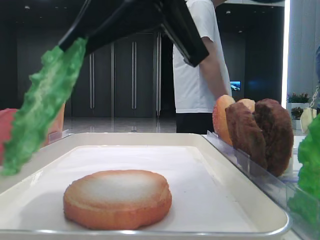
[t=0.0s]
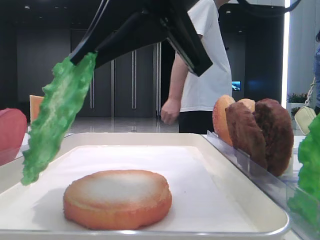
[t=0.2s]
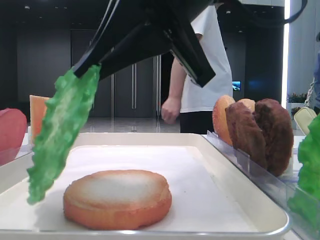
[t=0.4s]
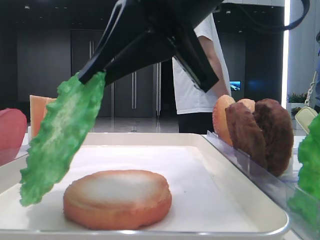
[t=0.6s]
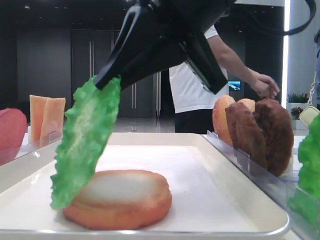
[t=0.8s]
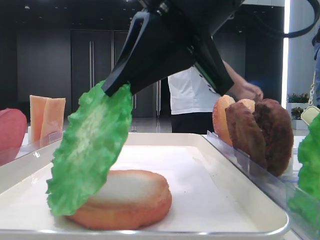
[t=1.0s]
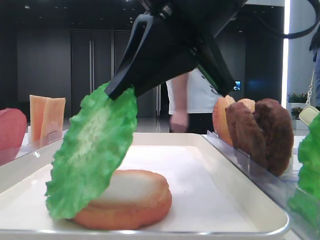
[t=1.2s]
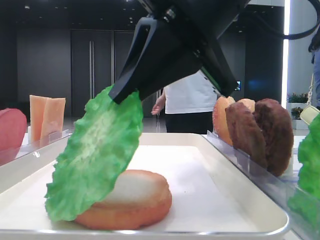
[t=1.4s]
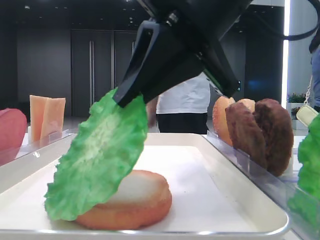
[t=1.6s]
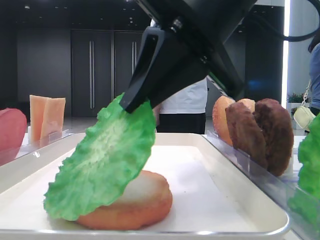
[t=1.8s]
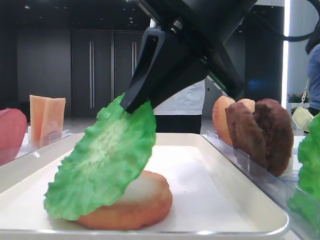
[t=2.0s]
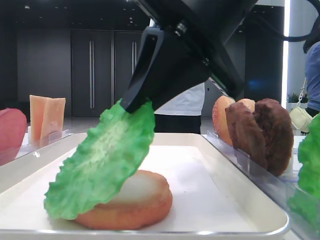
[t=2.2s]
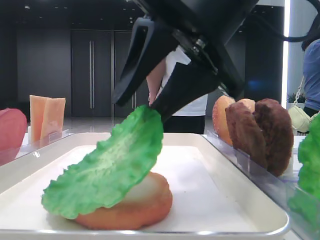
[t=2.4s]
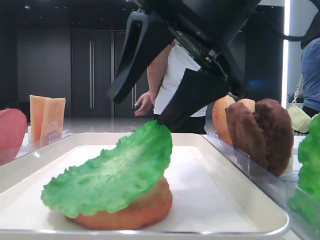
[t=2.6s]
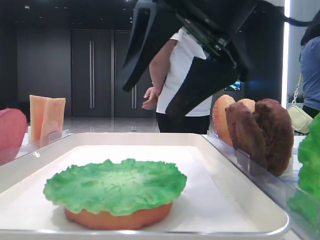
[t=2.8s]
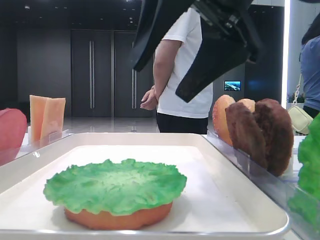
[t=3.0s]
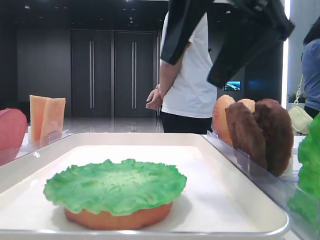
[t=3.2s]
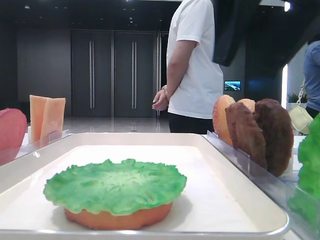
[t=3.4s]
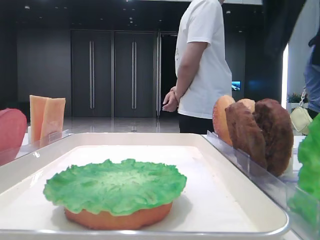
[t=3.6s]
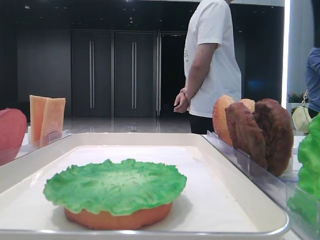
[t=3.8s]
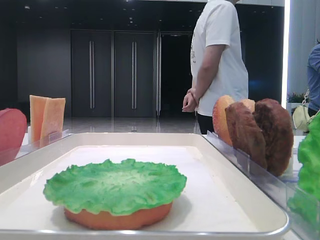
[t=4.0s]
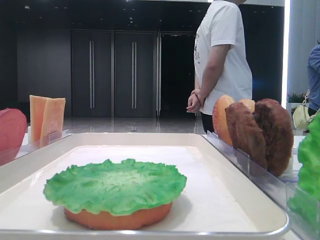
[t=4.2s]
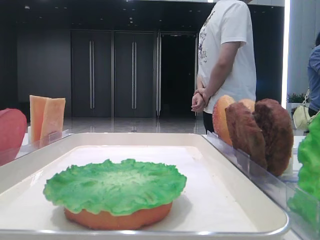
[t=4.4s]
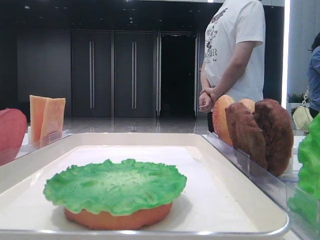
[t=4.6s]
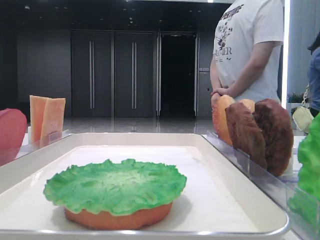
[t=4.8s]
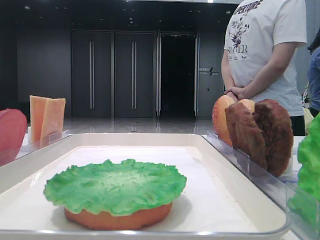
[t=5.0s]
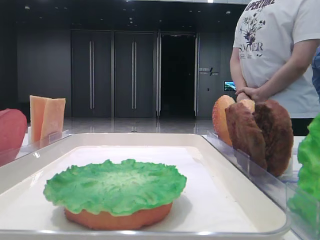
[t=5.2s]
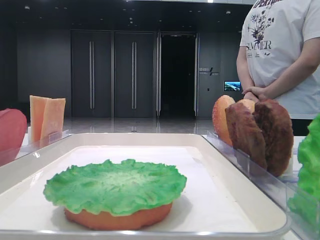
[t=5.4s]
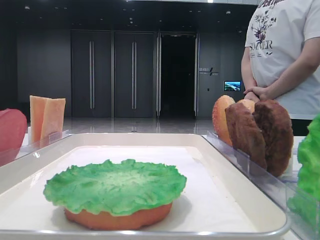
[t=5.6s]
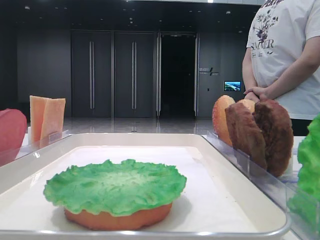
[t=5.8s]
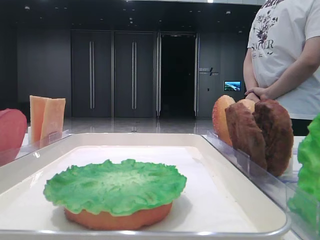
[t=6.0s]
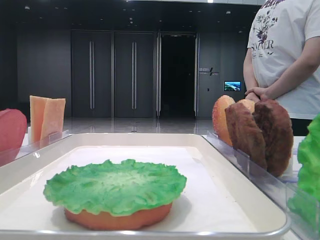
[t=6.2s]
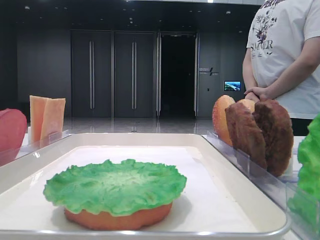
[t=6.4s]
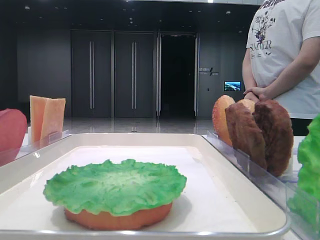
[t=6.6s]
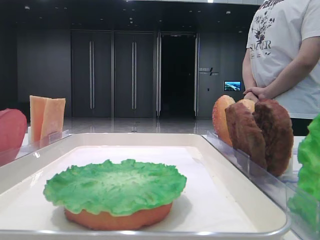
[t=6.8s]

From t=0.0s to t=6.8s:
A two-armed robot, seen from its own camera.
Step, from t=0.0s to t=2.6s: Place the lettuce leaf on the bottom bread with the right hand.
From t=1.4s to t=2.8s: The right gripper opens.
From t=2.8s to t=4.0s: The right gripper shifts roughly 20 cm to the right.
From t=4.0s to t=5.4s: The right gripper shifts roughly 20 cm backward.
From t=5.4s to t=6.8s: The grippers make only small movements.
